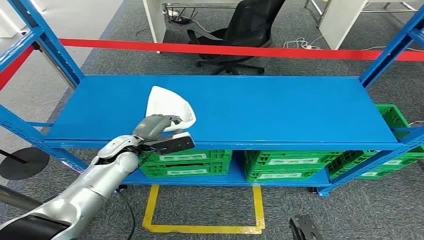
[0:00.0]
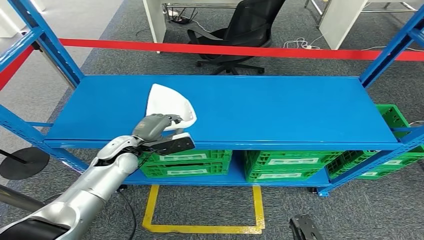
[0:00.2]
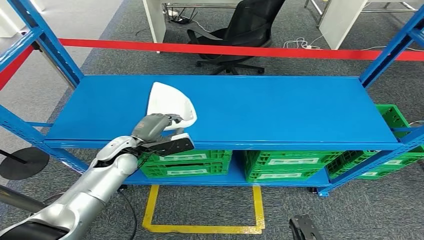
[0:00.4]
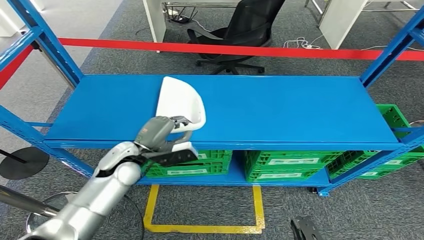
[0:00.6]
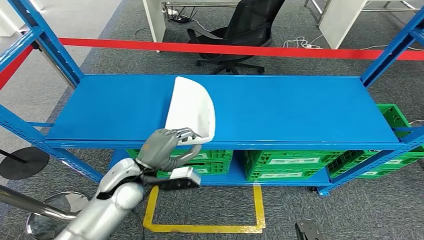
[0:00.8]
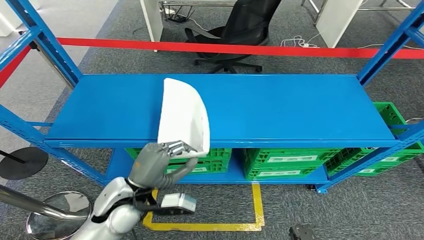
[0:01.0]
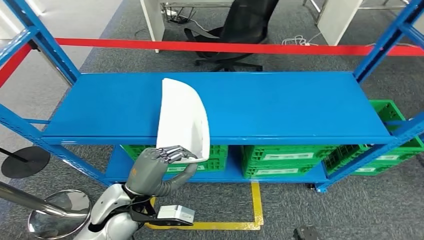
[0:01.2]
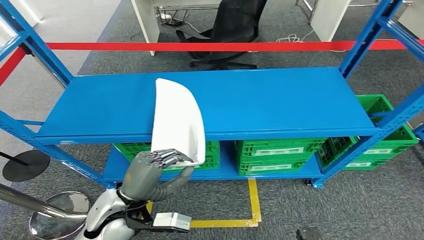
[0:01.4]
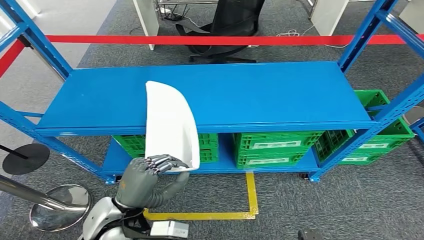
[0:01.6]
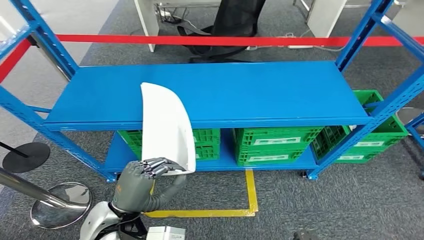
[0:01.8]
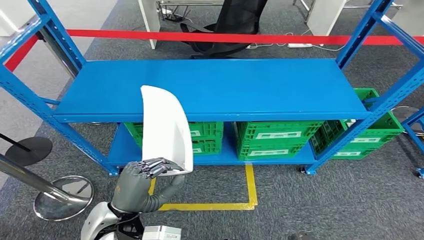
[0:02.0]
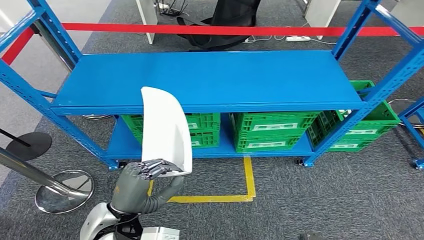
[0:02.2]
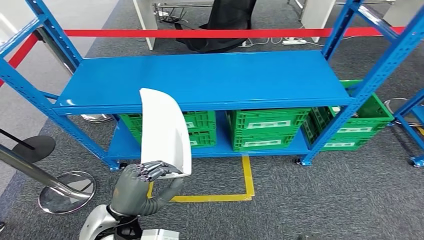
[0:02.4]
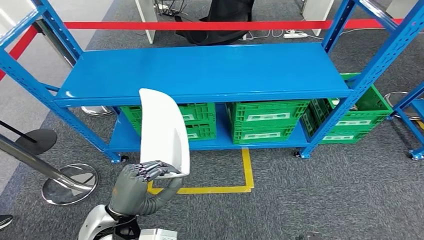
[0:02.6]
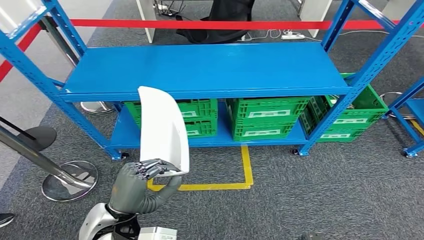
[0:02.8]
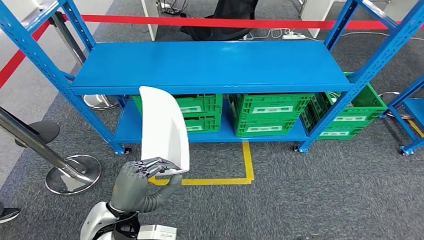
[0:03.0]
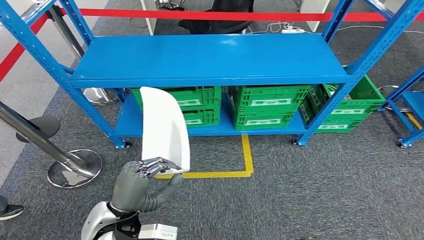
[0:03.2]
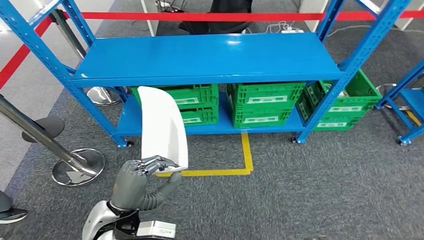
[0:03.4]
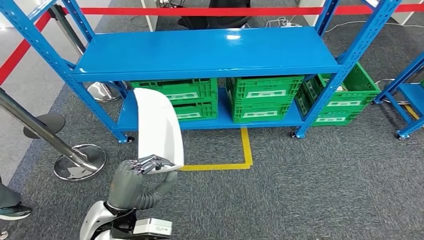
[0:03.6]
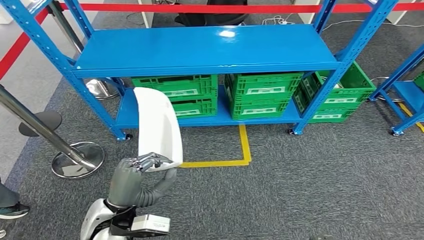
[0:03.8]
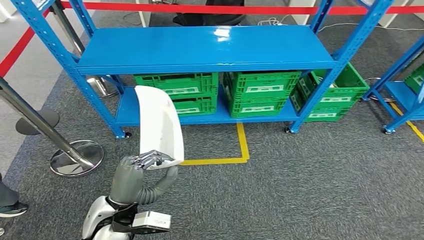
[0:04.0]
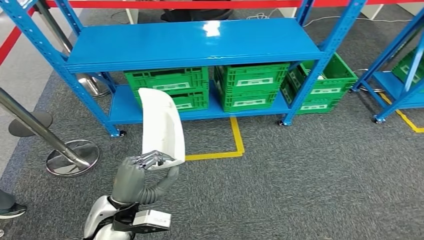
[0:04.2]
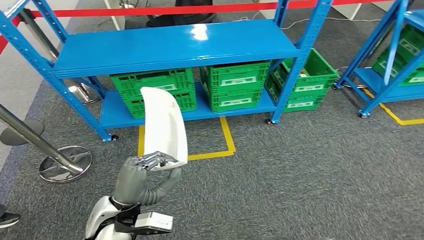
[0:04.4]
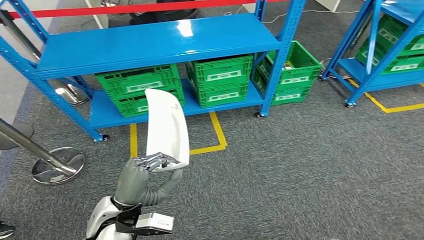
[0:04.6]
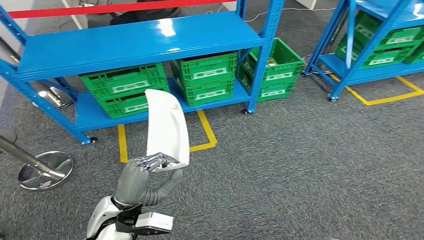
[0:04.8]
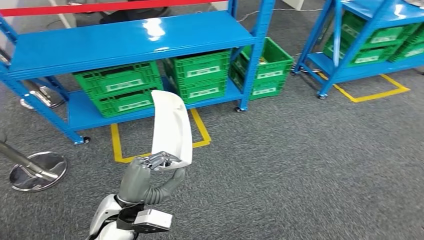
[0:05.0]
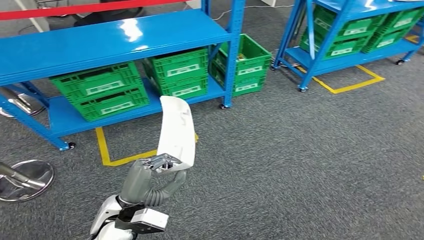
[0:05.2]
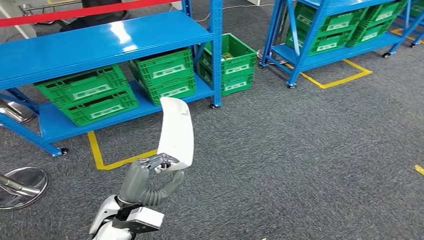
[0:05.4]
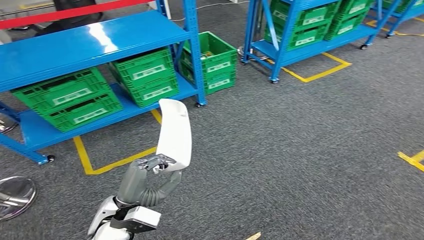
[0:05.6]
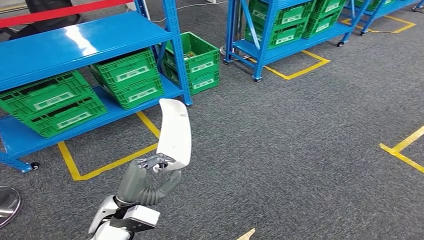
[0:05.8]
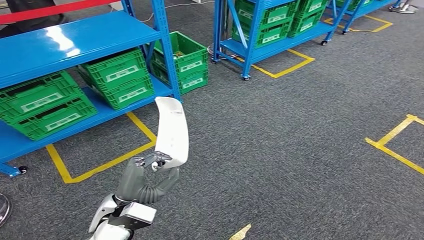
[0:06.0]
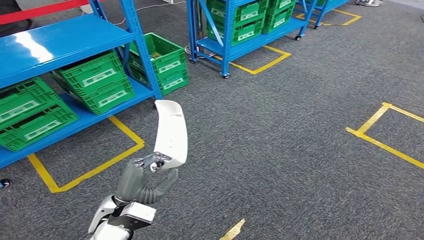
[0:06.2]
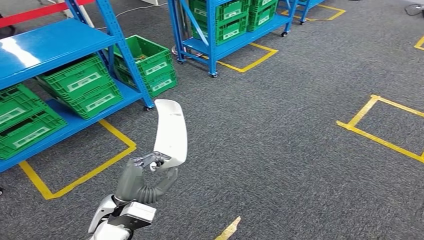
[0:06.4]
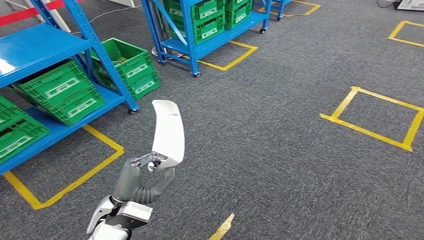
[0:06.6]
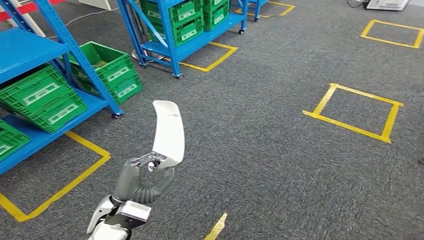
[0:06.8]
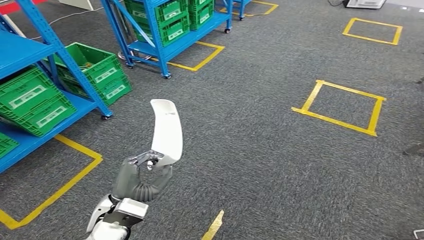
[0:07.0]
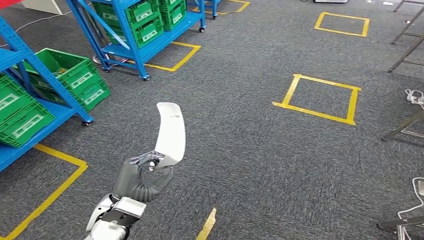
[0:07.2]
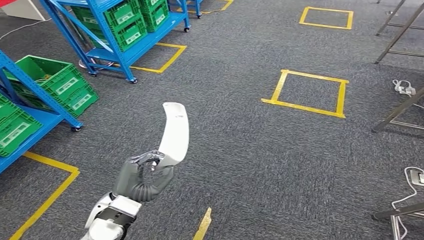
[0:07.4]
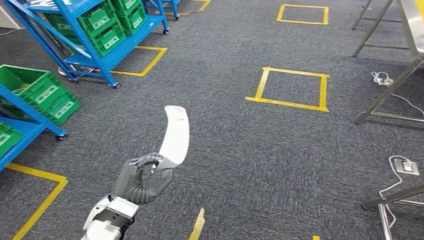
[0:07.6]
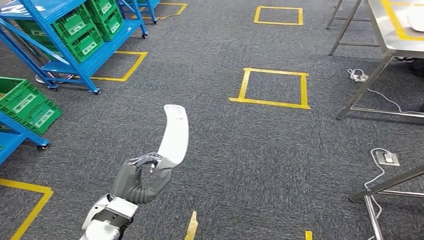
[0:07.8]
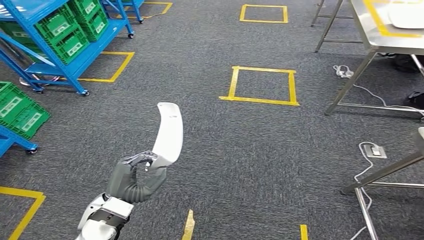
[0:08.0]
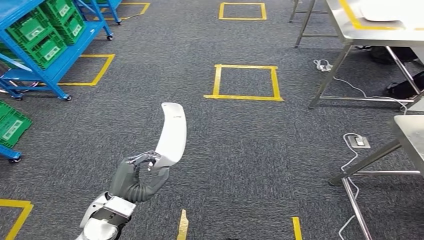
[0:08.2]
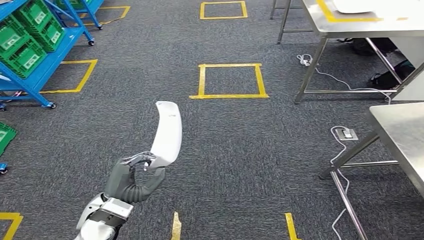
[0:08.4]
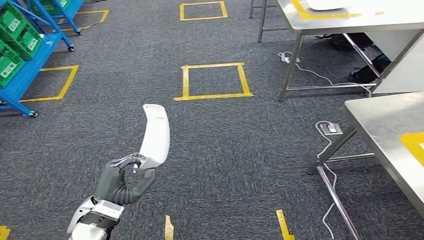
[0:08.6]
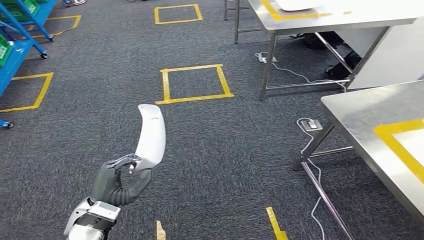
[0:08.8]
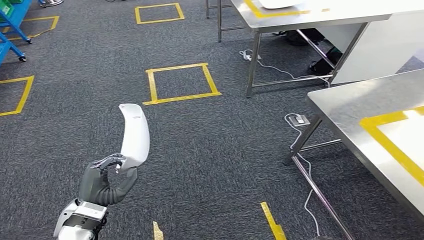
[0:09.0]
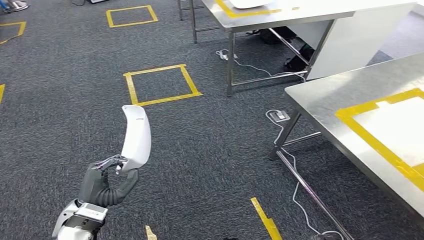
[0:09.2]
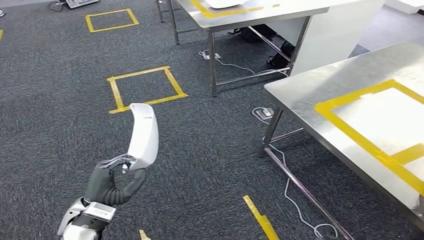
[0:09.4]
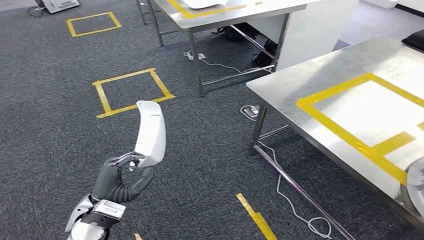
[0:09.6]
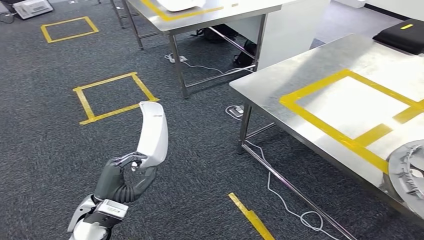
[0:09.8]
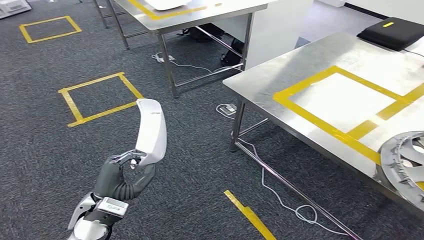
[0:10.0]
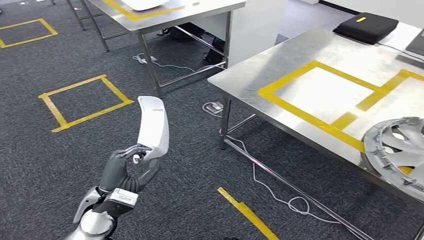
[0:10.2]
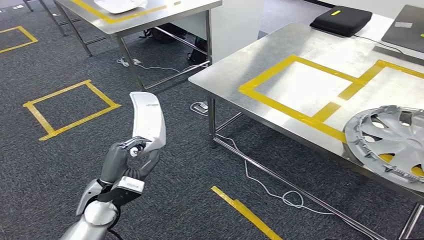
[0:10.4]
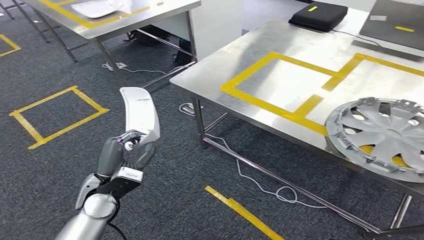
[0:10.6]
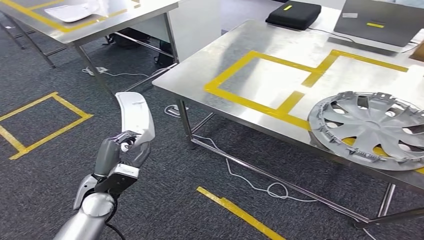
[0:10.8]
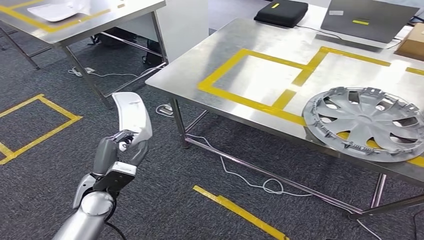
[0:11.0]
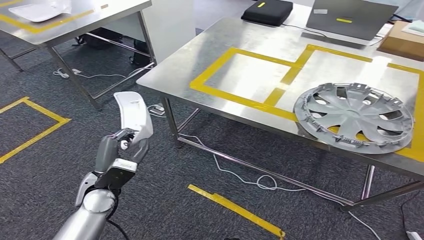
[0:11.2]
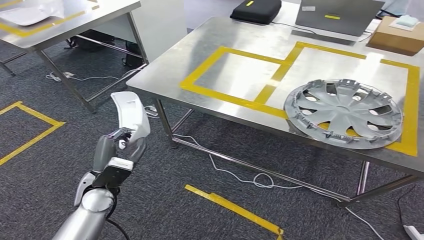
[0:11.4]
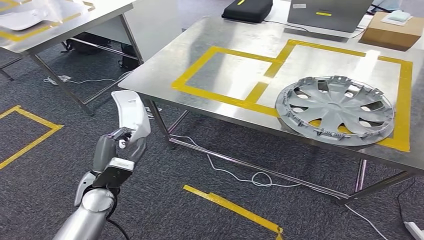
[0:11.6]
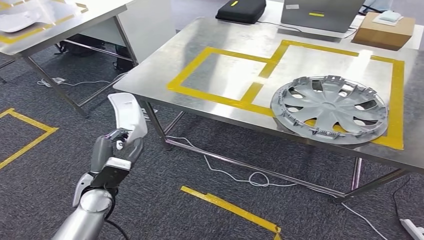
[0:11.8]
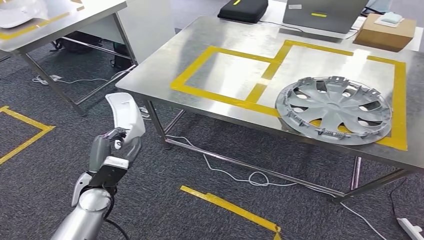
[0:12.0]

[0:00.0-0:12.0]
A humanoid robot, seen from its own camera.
Step, 0:00.0 to 0:03.4: Take small components from the rack.

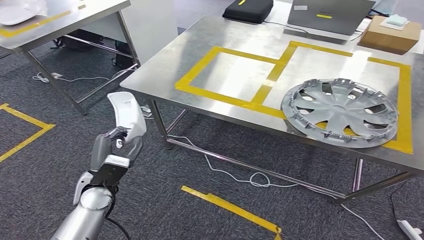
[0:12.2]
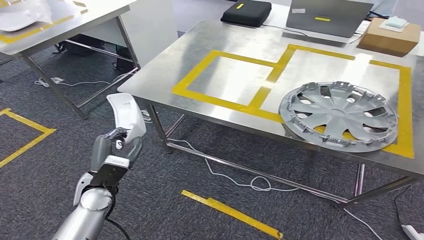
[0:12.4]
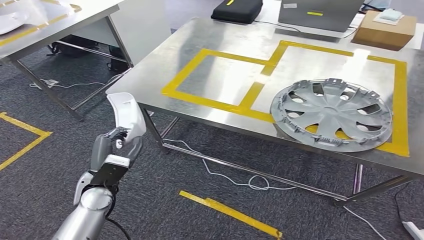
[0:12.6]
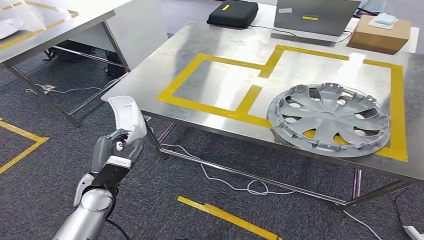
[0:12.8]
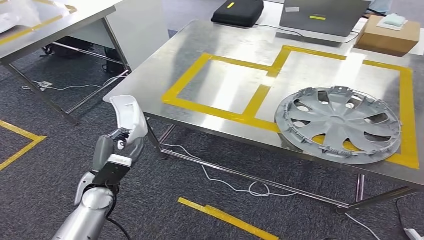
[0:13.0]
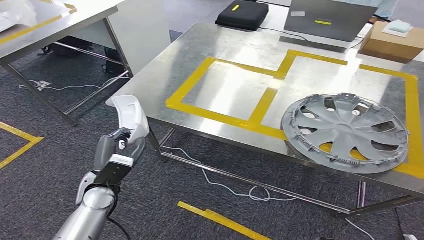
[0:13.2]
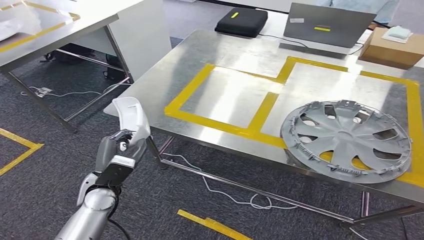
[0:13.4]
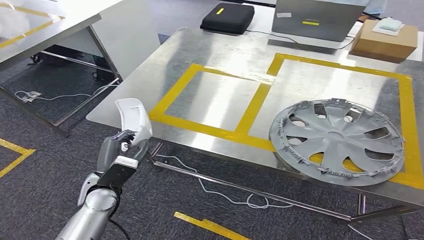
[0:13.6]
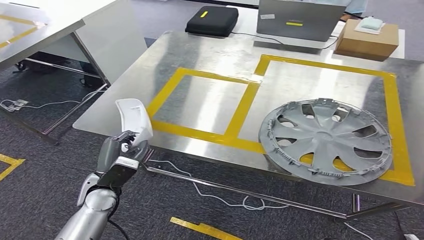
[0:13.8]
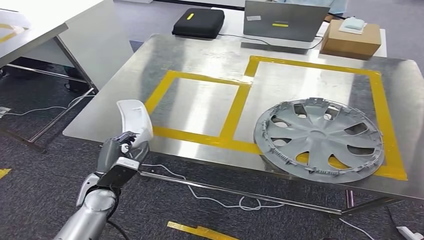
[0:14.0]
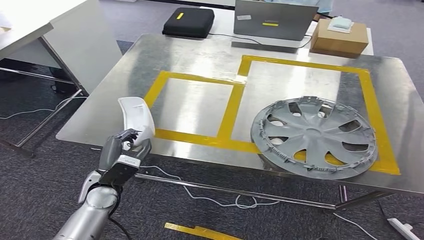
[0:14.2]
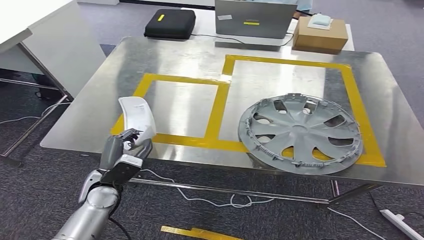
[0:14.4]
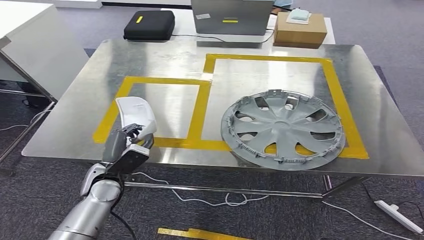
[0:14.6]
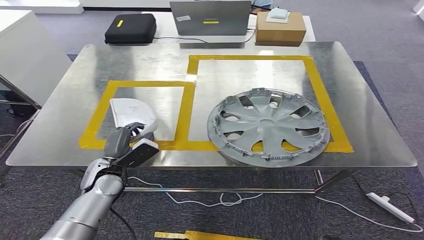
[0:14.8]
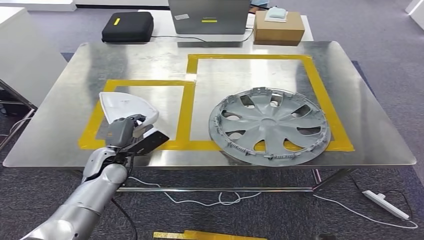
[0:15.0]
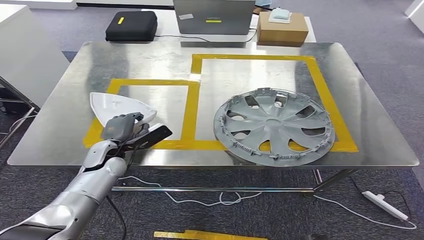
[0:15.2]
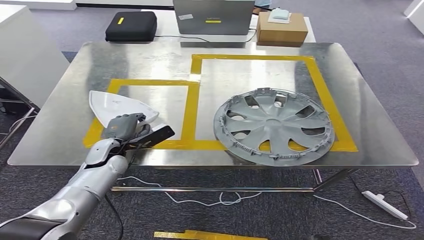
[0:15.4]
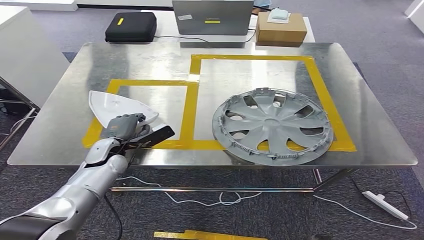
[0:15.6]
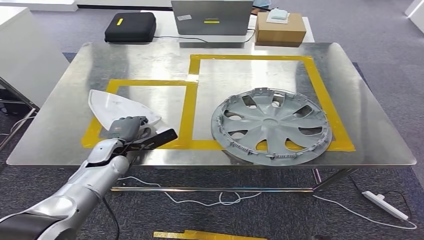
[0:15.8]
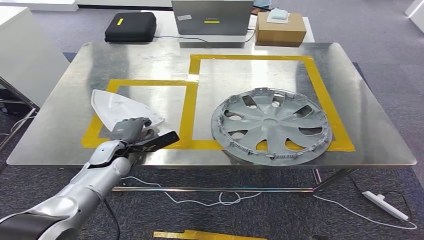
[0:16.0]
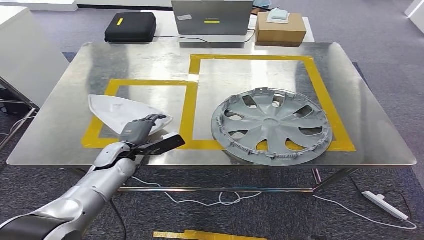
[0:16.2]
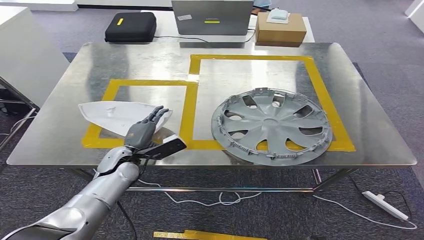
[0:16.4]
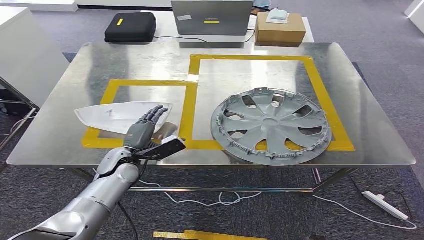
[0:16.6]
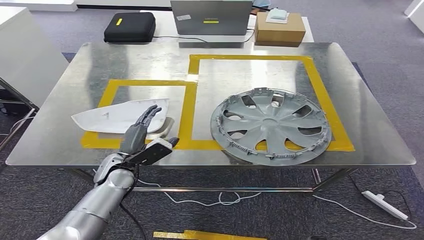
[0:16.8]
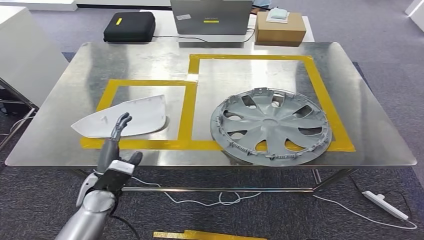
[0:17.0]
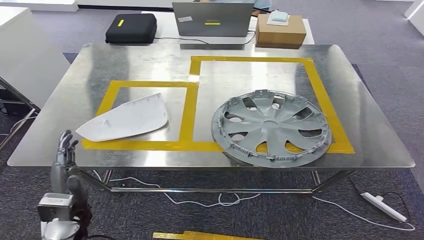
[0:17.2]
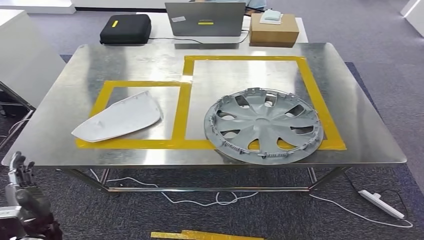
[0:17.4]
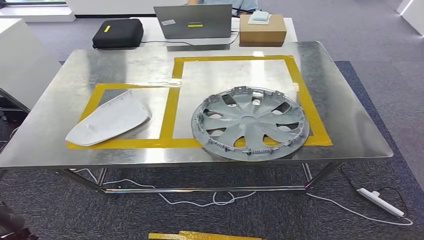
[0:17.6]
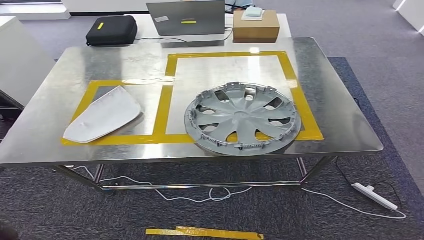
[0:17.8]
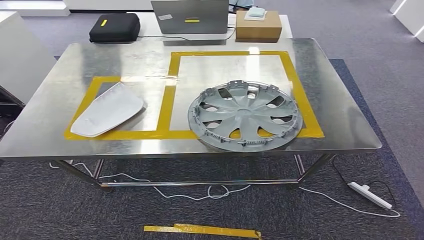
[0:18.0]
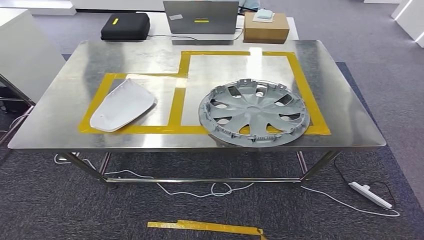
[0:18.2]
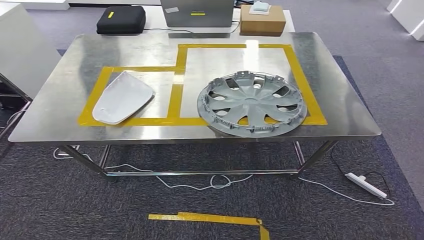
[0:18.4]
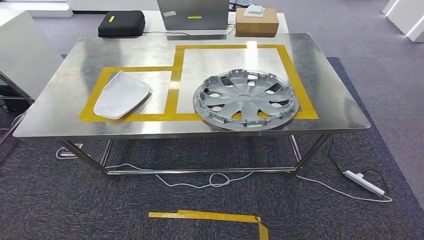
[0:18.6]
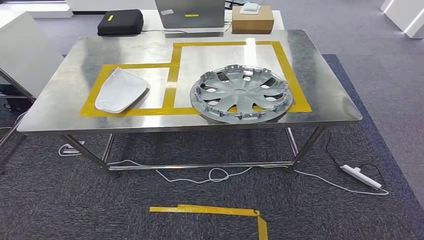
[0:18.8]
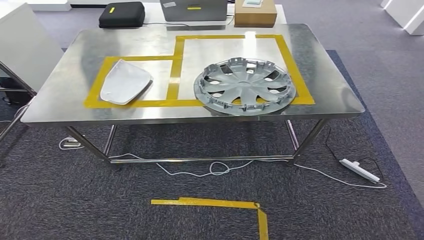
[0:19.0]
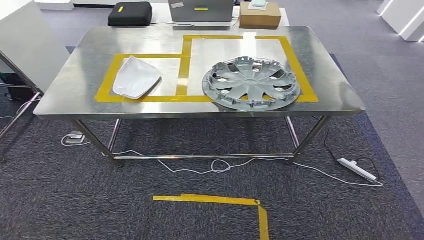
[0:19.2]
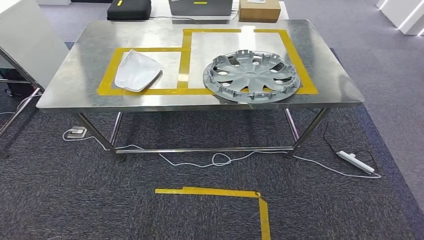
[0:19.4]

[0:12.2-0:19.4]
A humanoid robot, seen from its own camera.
Step, 0:12.4 to 0:17.0: Insert the small parts into the corresponding holes on the workbench.
